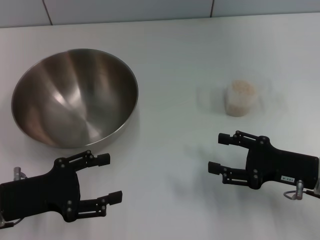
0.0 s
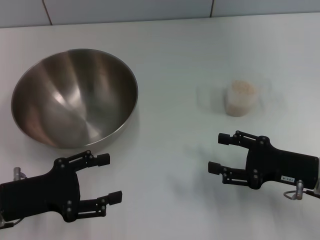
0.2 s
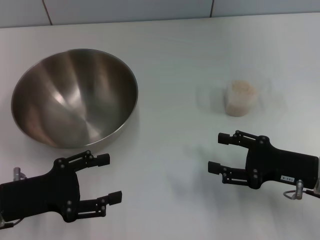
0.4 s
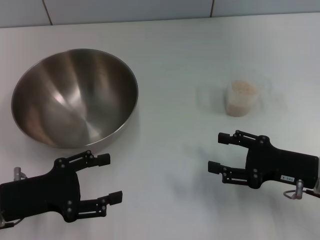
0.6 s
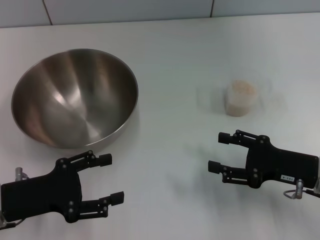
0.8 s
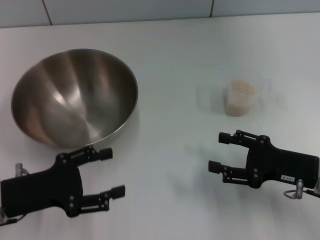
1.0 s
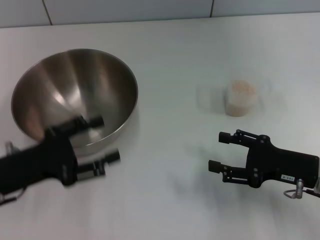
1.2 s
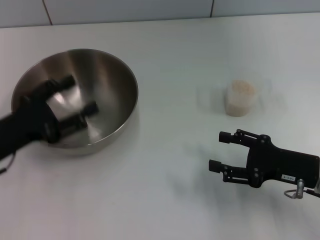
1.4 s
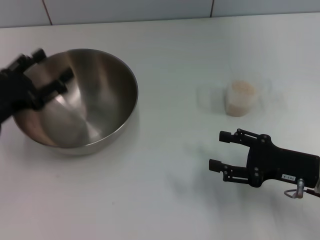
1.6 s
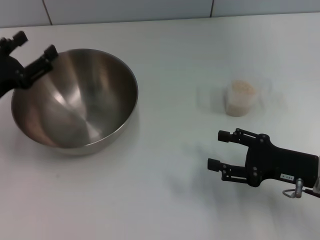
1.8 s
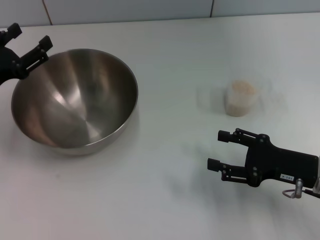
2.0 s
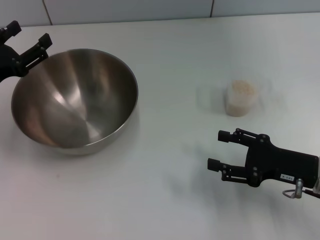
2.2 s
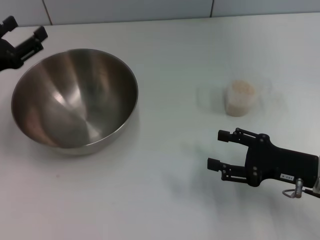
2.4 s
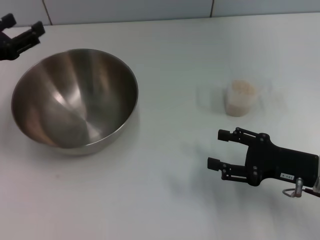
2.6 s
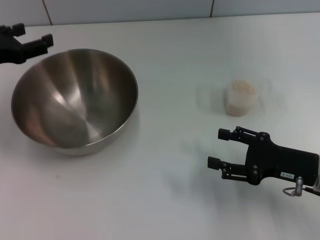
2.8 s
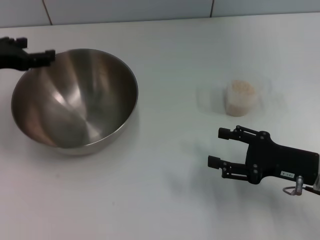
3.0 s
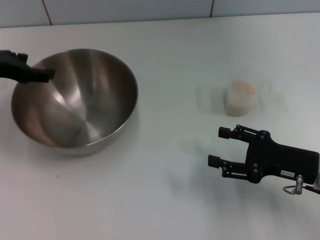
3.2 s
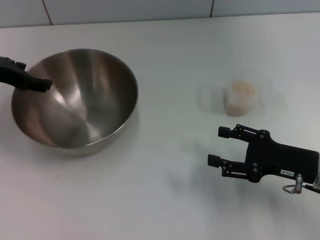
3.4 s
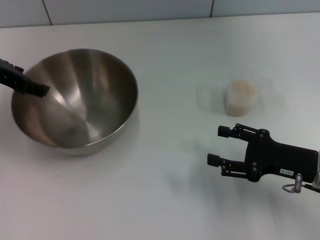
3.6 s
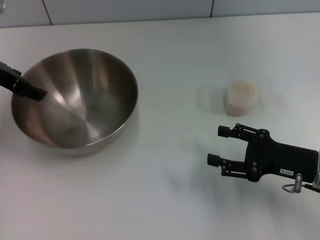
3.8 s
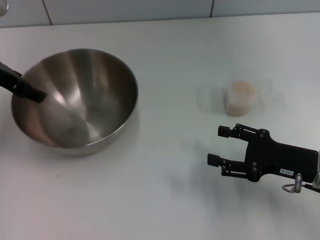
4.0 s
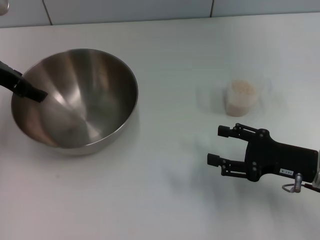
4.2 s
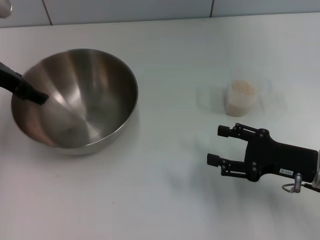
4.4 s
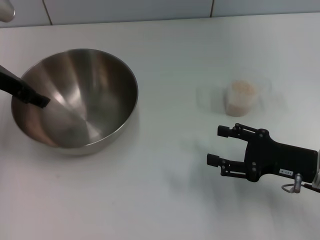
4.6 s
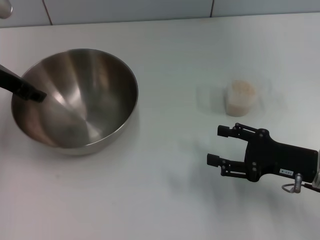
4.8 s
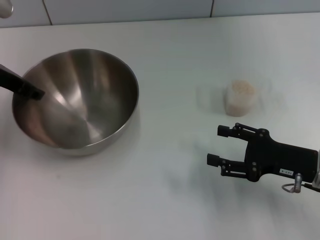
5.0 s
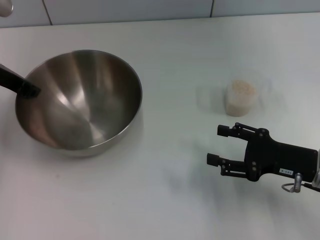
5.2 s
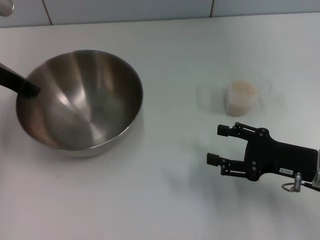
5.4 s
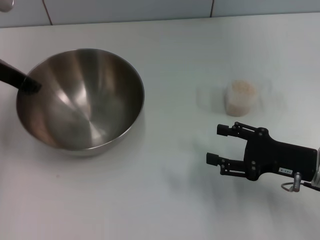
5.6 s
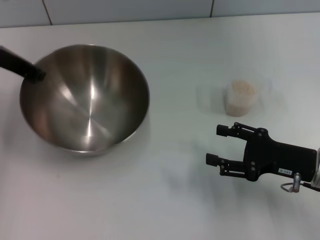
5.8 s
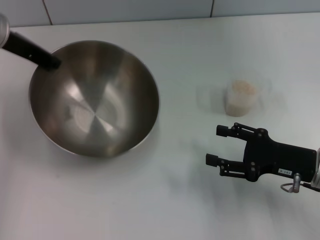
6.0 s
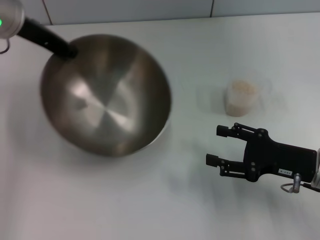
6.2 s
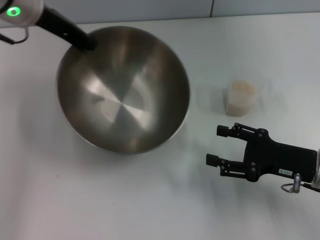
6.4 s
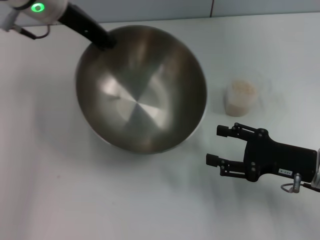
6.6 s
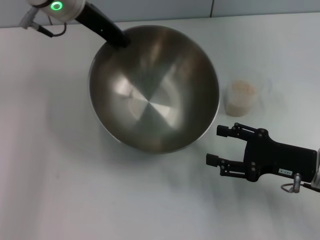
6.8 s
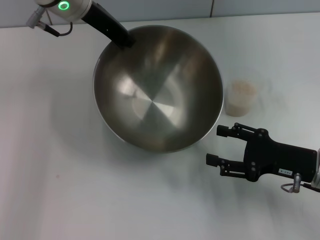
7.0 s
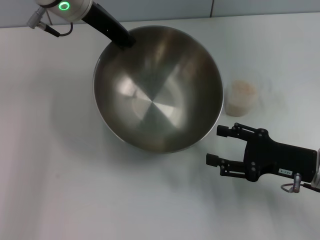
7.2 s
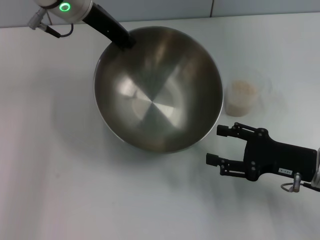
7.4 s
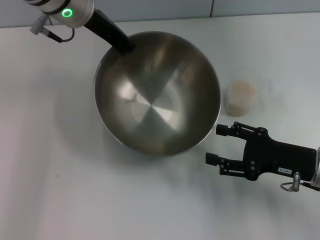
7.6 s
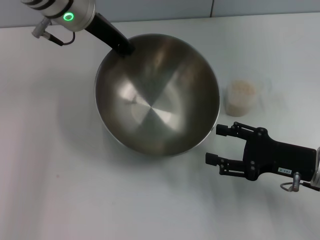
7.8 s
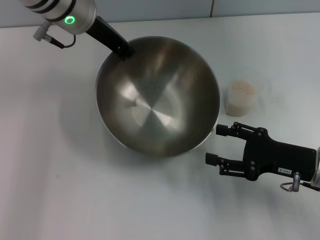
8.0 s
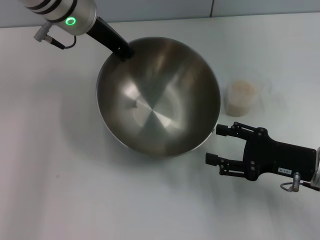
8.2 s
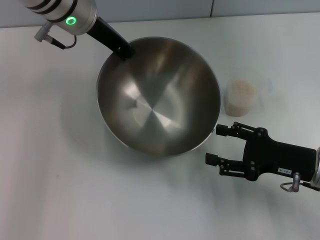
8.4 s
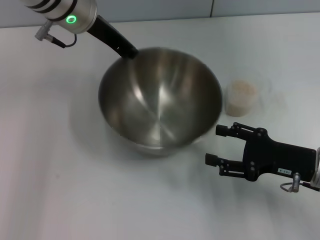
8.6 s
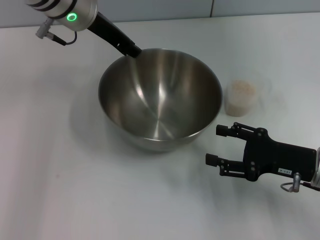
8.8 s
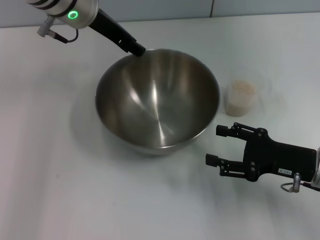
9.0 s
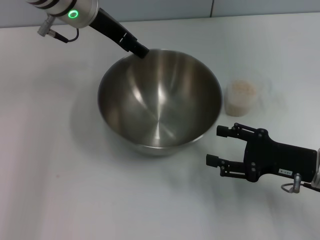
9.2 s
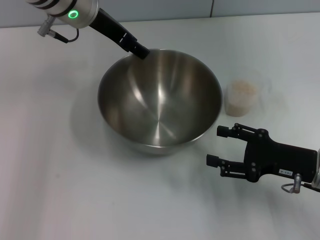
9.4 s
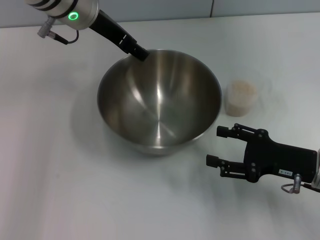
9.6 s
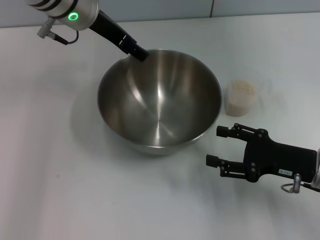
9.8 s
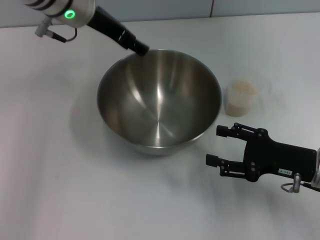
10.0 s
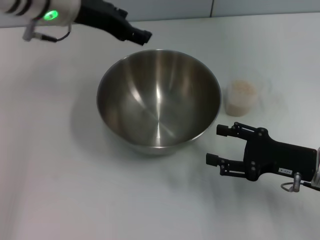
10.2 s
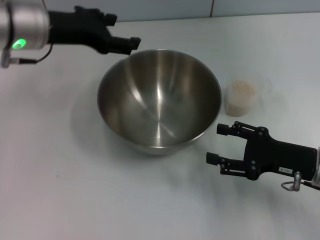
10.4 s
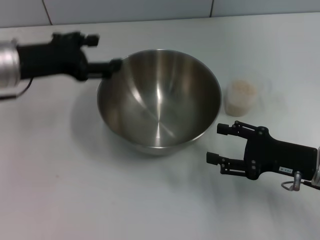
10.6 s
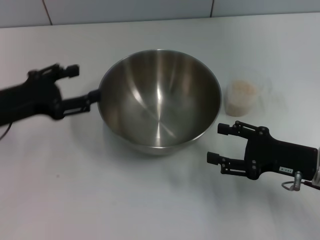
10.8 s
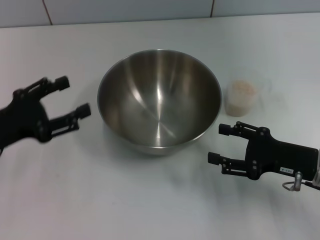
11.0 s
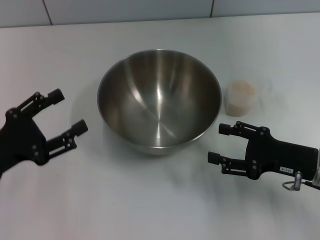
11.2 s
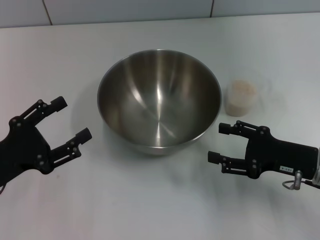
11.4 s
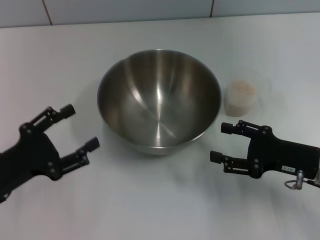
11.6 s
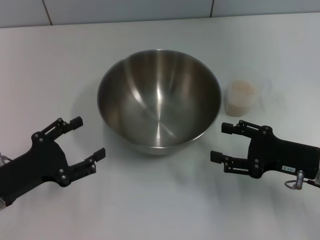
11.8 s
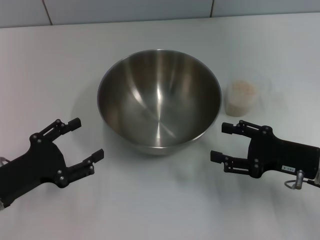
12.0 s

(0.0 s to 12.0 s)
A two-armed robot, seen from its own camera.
Task of the whole recording: Place the bowl in the middle of the table with one hand and pour the rice from the grain cup into it with the other hand.
Step, 0.0 s - 6.0 s: Pick up the bowl with the left gripper.
Step, 6.2 s - 10.2 s: Place the bowl in the center of view with the left gripper.
0.0 s - 1.6 s: The left gripper heads forward, covering approximately 5 cm.
1.6 s - 3.0 s: The left gripper shifts roughly 10 cm forward and upward.
3.0 s - 4.4 s: The left gripper changes place by some 5 cm.
4.4 s - 6.0 s: The left gripper closes up.
6.0 s - 7.6 s: The left gripper moves to the right, roughly 10 cm.
7.6 s - 9.0 s: The left gripper opens its fingers.
9.0 s - 10.4 s: The left gripper shifts some 10 cm to the left and backward, and opens.
10.4 s - 12.0 s: The left gripper goes roughly 25 cm backward, downward and to the left.

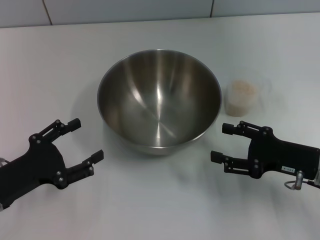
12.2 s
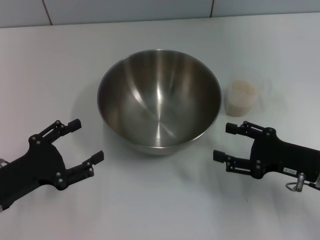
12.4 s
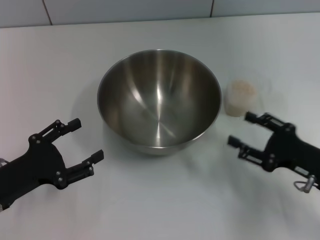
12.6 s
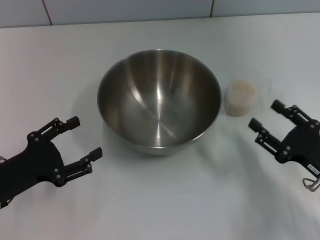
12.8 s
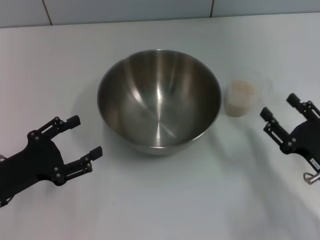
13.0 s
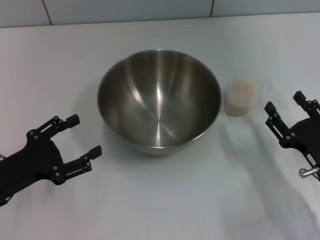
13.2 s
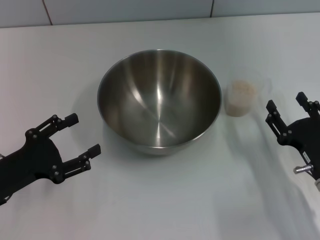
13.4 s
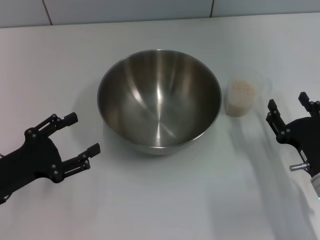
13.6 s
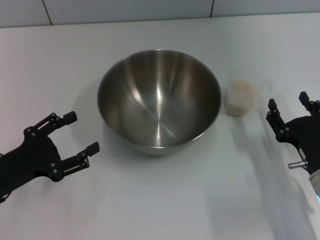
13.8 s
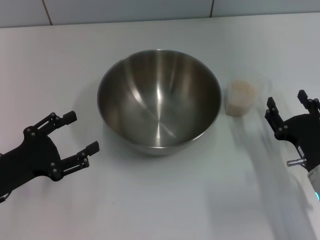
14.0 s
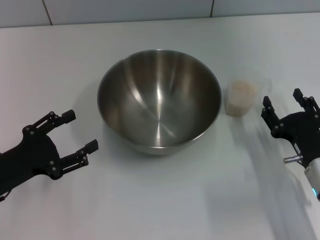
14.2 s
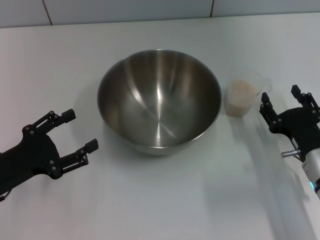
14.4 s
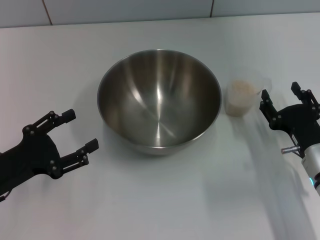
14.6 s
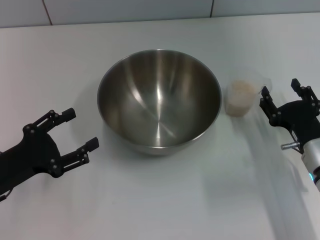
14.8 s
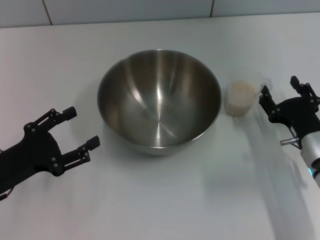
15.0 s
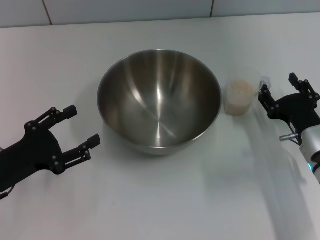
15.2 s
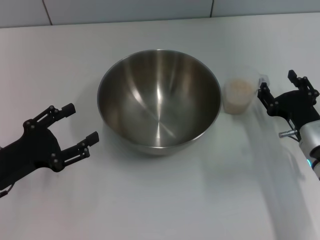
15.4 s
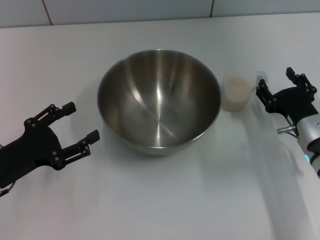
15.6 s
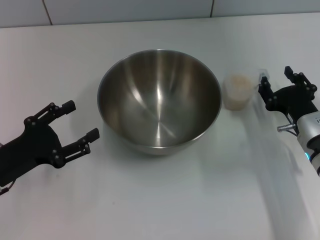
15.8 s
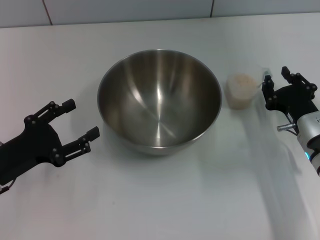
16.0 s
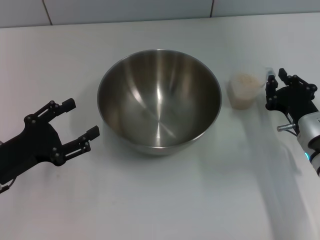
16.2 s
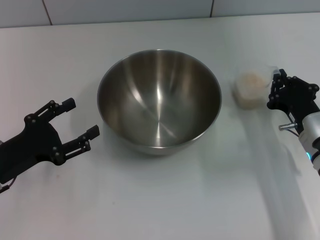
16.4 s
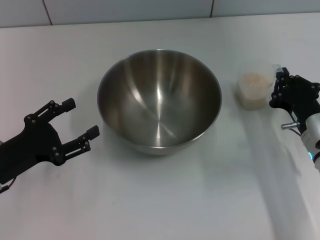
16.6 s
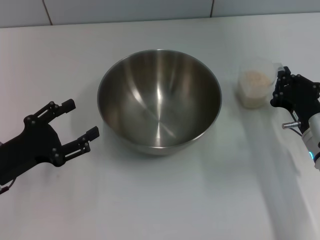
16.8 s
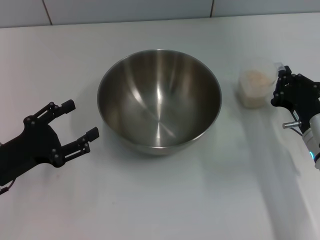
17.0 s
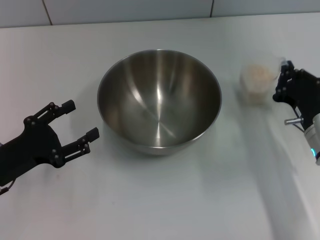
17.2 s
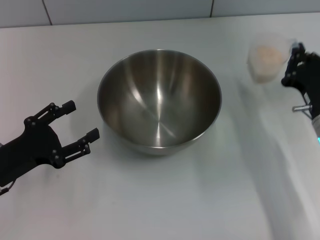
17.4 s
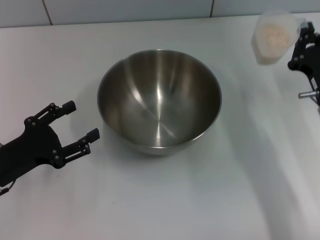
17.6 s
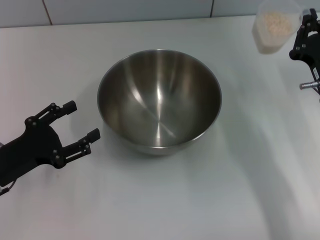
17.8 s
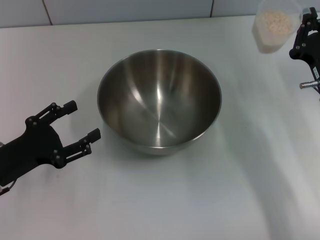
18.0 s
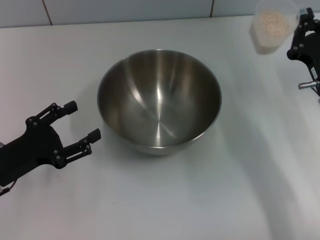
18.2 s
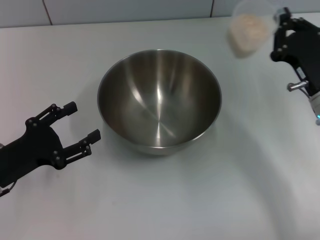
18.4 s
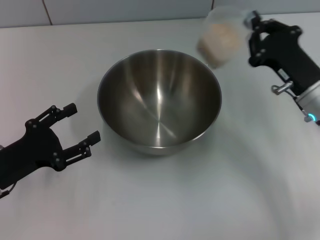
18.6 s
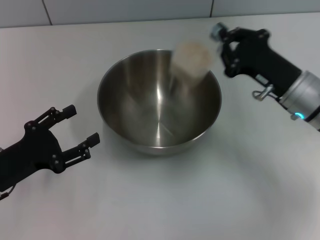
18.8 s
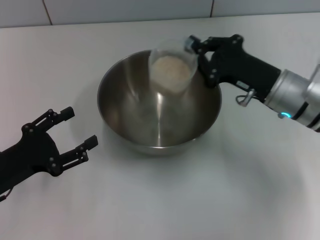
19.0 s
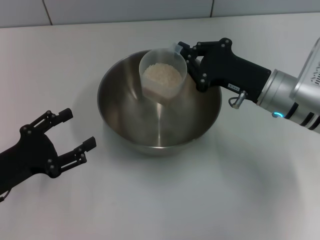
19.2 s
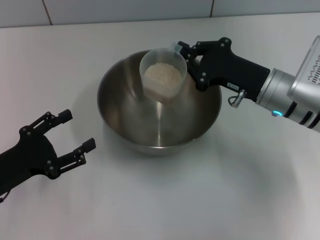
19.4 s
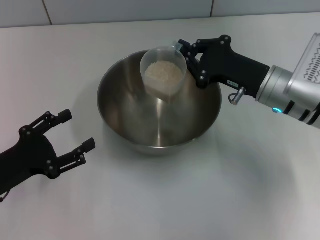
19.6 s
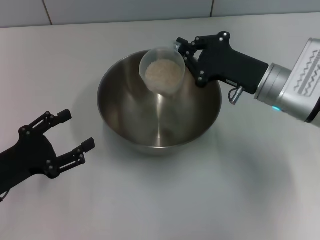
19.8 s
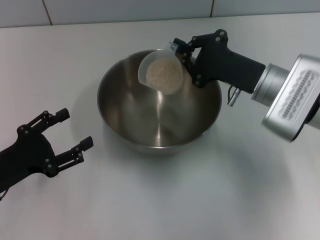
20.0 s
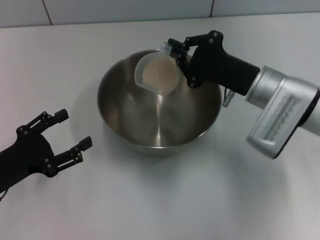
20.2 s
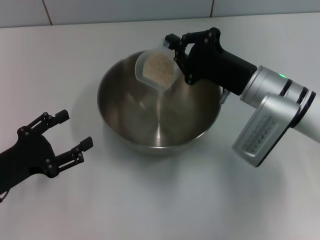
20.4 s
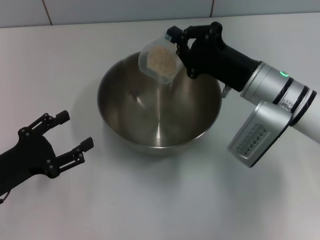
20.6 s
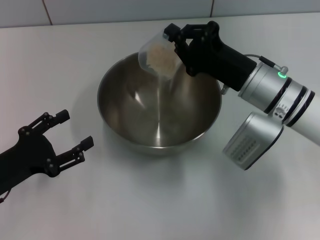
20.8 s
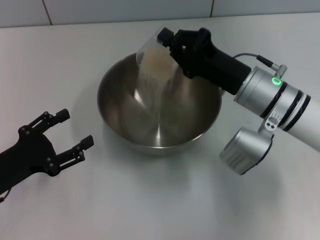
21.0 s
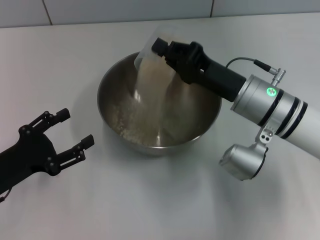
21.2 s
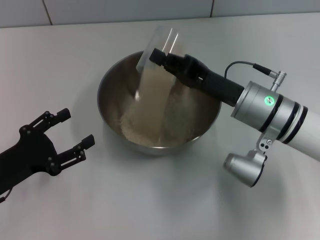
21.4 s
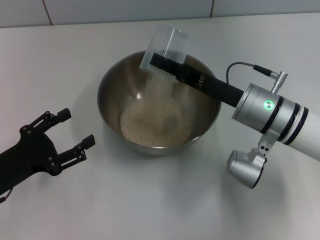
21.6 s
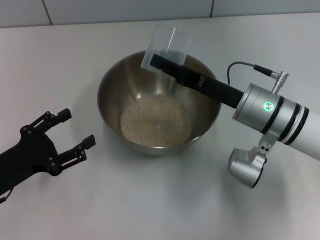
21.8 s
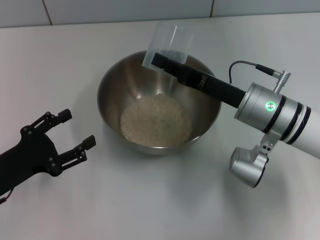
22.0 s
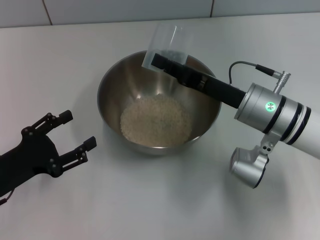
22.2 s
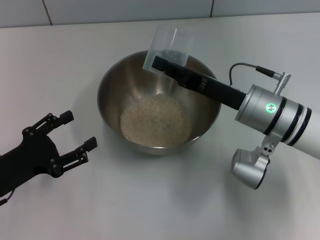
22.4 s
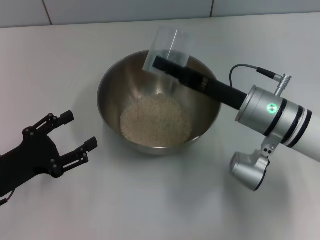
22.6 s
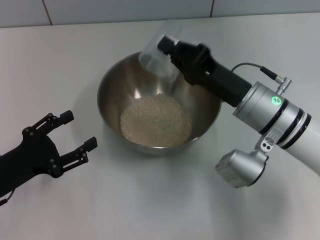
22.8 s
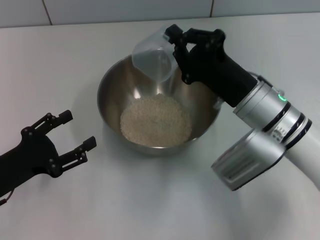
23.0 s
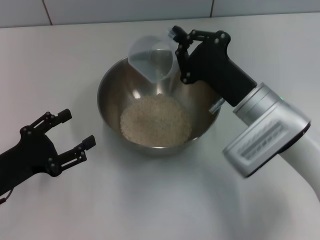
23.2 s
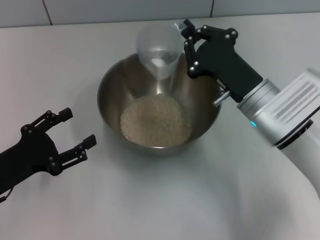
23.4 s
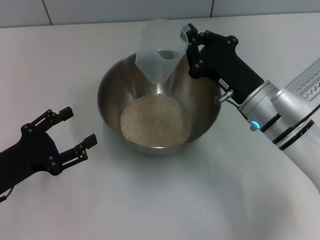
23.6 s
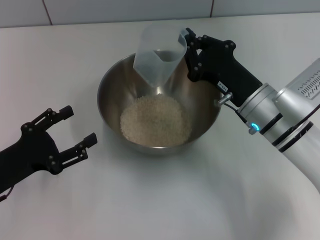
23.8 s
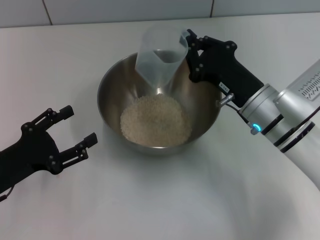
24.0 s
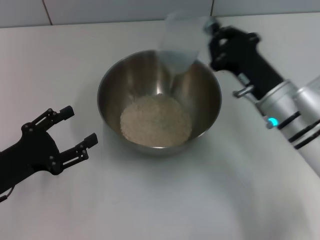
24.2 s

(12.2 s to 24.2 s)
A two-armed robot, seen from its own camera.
Task of the whole recording: Place the bowl in the middle of the table with one hand and pour the rice from the grain cup into it with the other hand.
Step, 12.2 s - 17.6 s: Pick up the cup with rice in it with the right gripper.
Step, 17.8 s - 23.2 s: Pour the rice from the cup into the bowl with the right gripper.
12.2 s - 13.8 s: The right gripper changes place by approximately 5 cm.
13.8 s - 15.2 s: The right gripper goes approximately 5 cm forward.
15.2 s - 16.6 s: The right gripper closes its fingers.
16.6 s - 18.2 s: The right gripper shifts by approximately 5 cm.
18.2 s - 19.8 s: The right gripper travels to the left by about 5 cm.
